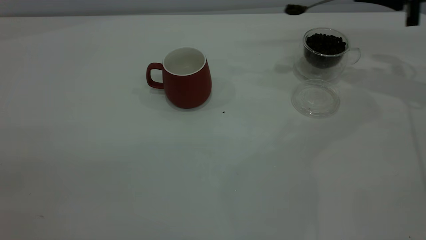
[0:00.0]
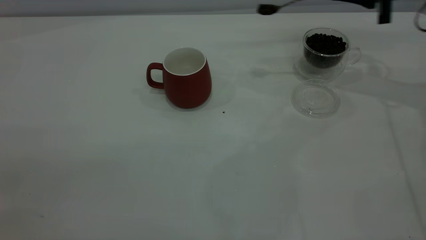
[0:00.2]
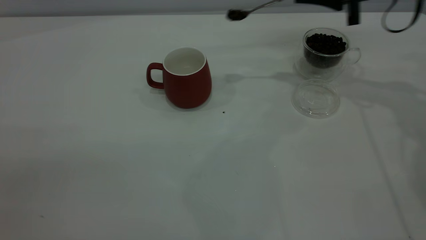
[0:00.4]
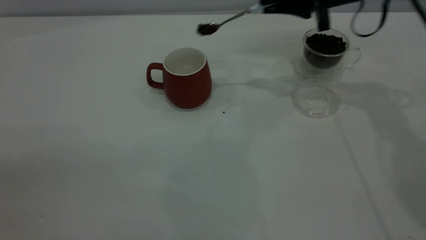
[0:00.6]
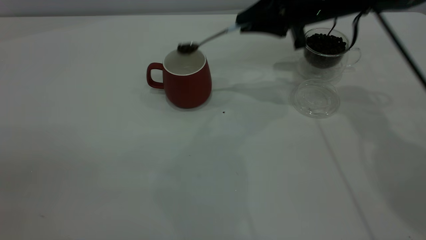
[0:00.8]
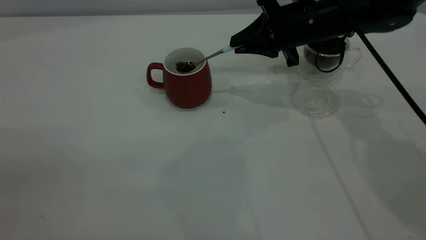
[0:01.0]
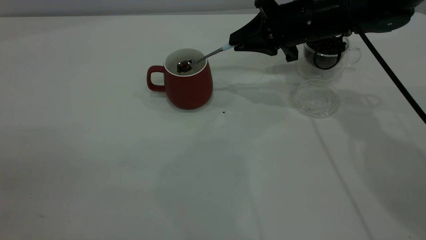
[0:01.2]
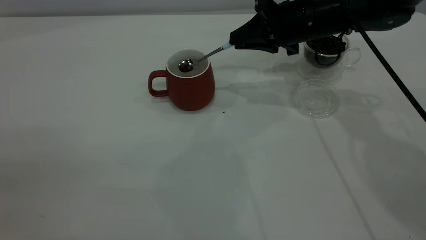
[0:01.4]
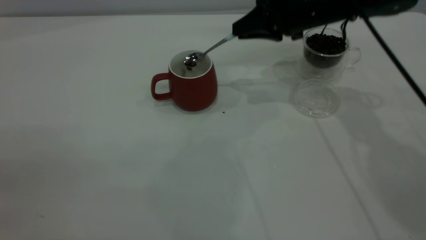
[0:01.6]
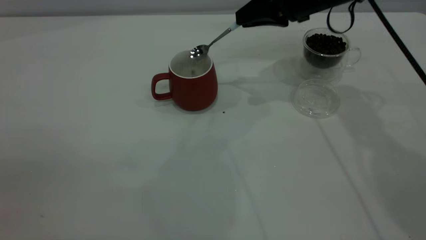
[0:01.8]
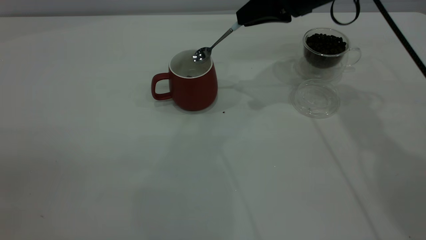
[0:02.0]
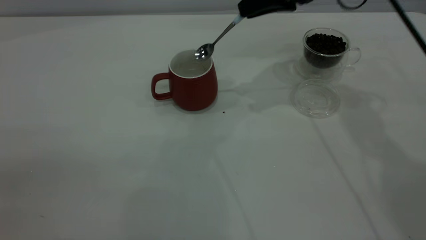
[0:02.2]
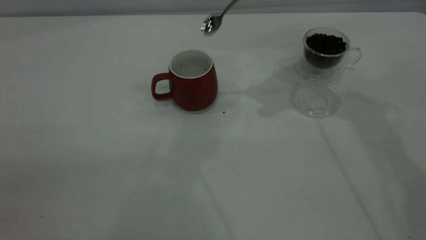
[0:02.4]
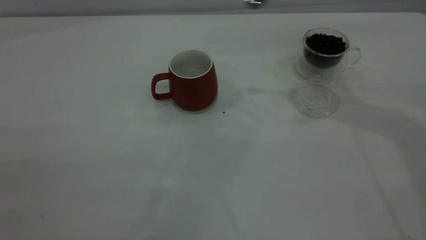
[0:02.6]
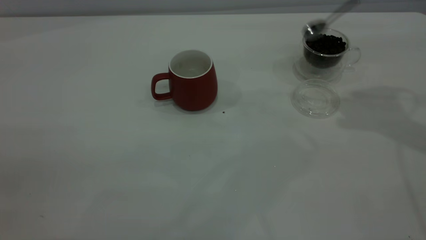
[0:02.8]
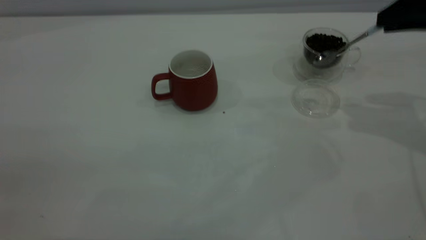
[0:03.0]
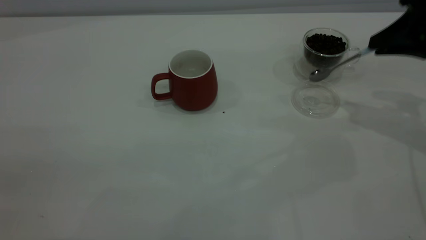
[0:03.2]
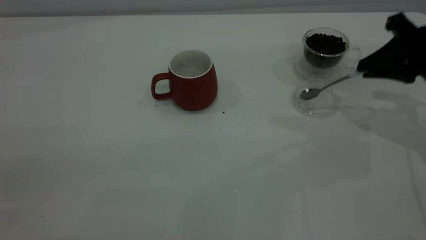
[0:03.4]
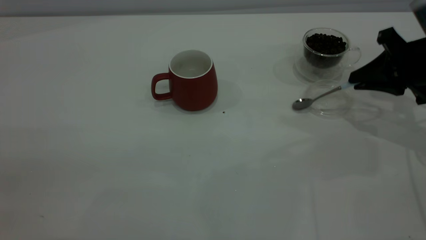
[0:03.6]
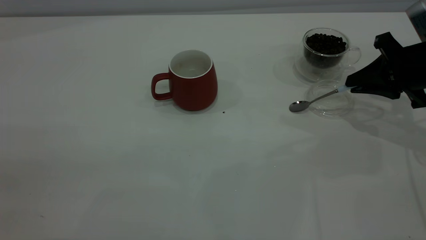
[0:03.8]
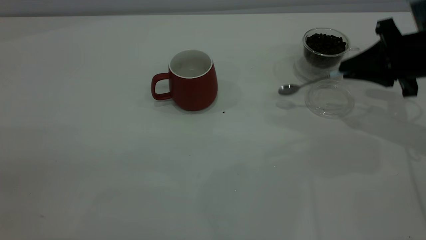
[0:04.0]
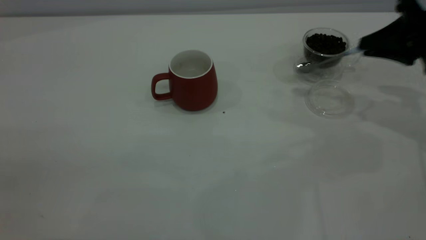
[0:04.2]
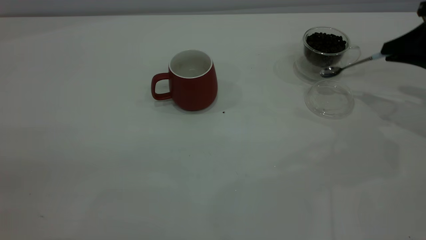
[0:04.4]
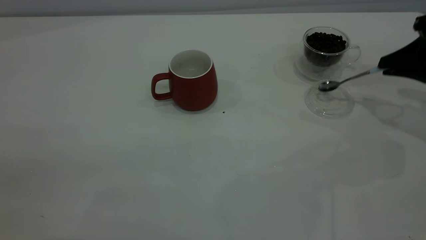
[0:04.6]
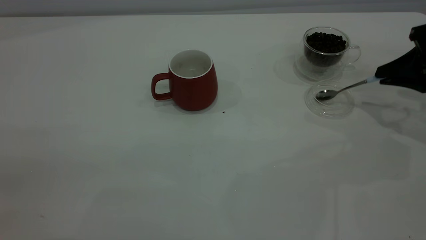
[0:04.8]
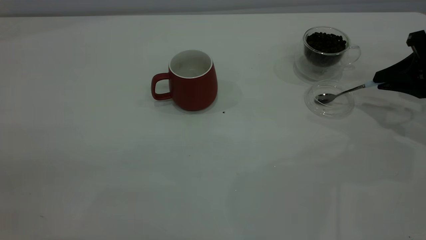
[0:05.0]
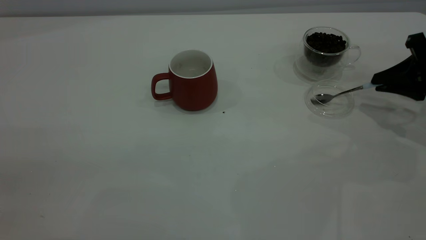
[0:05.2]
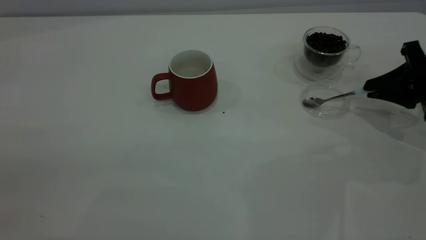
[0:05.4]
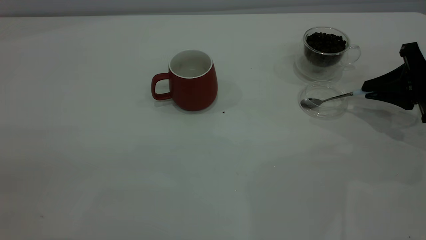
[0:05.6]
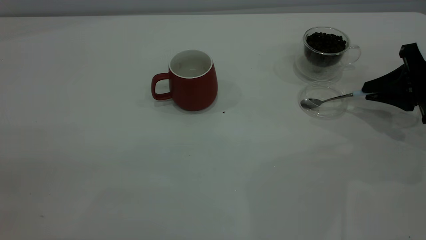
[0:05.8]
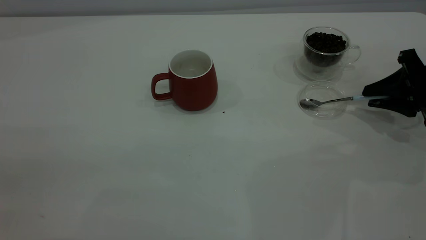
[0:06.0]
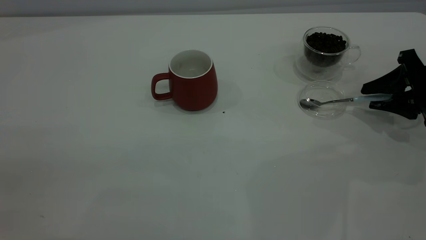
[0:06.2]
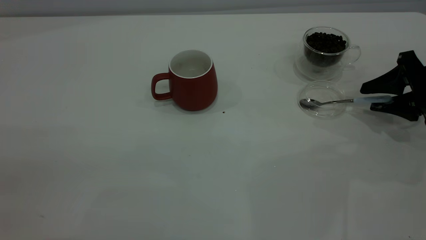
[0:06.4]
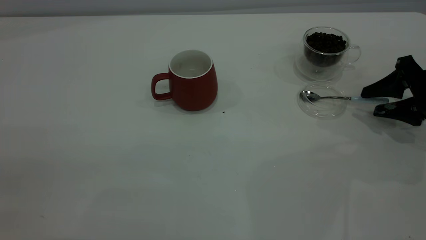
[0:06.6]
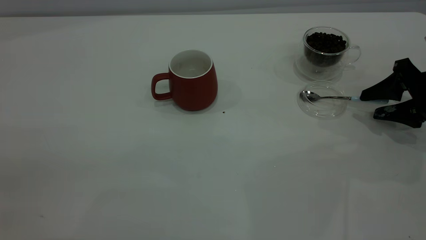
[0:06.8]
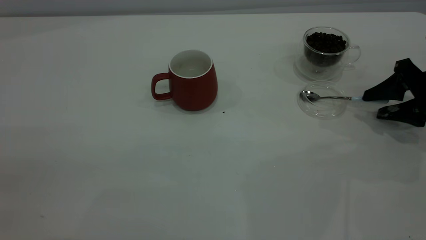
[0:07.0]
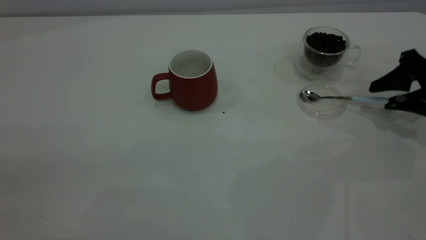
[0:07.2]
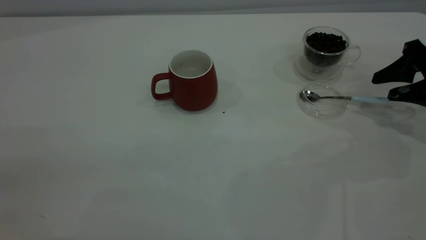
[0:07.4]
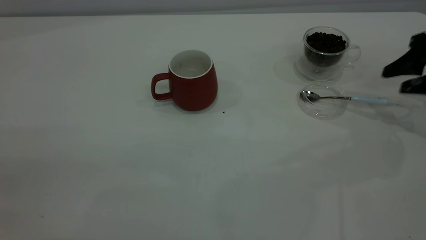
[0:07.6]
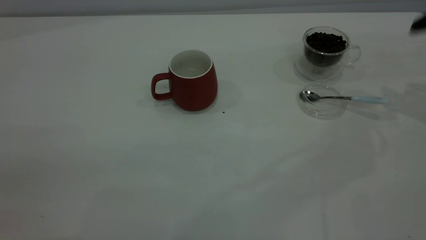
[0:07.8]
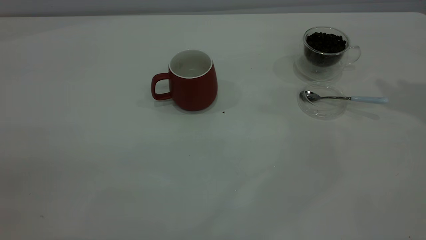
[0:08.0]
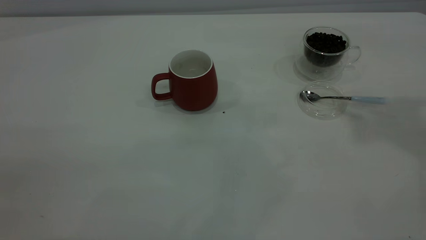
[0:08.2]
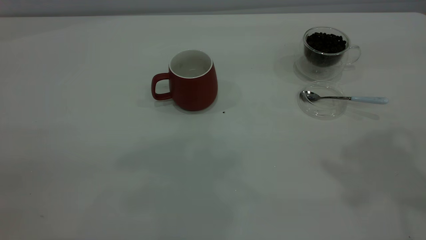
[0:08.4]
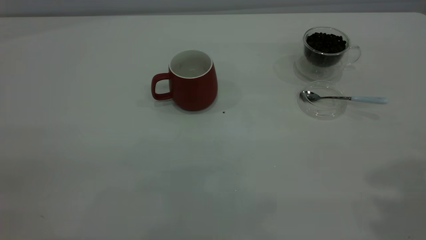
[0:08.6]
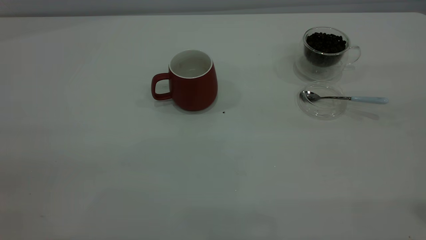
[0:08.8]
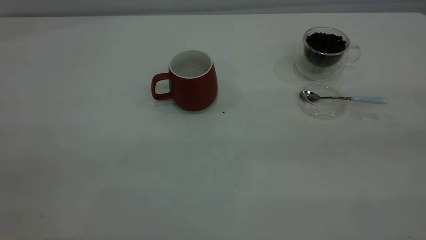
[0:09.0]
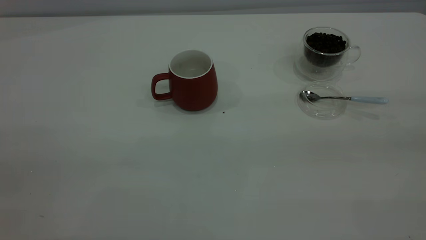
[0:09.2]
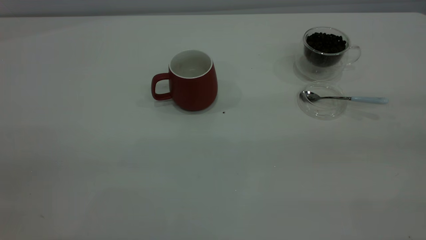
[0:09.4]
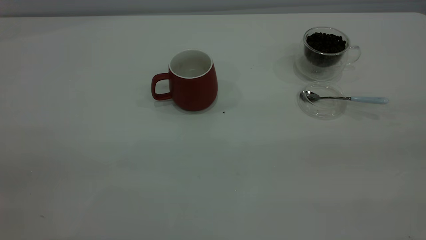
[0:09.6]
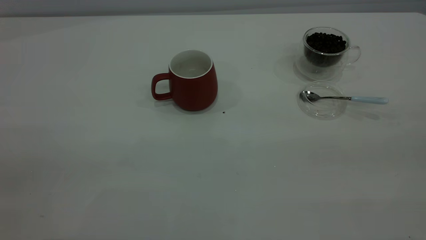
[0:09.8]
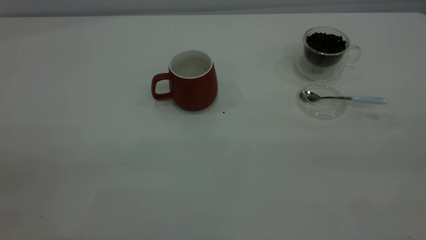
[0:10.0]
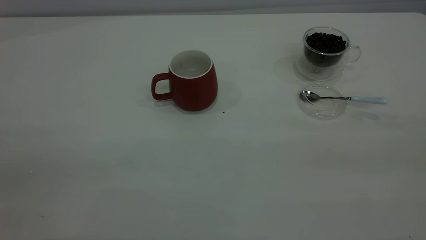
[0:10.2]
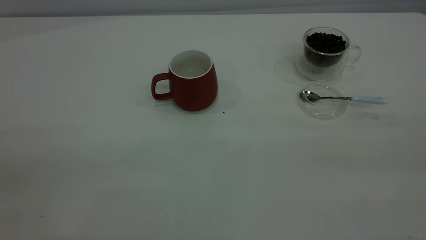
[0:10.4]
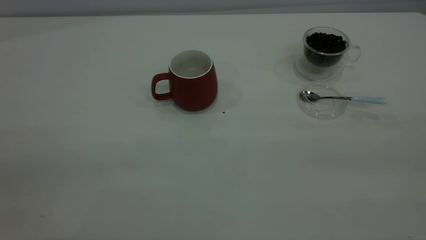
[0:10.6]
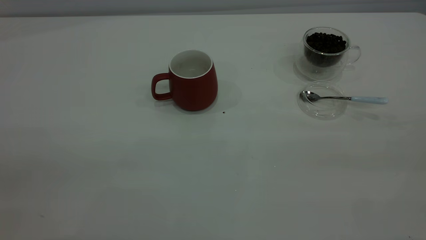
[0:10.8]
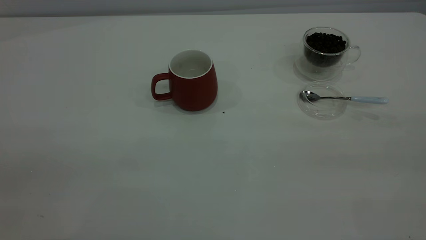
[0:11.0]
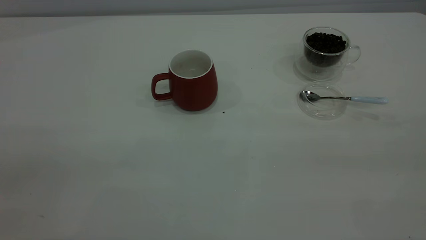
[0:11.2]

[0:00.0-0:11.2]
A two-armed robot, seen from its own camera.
Task of the whole recording: the left gripper place the red cup in the center of the table, the right gripper take the blue spoon from the cup lid and scoop out the coffee beans from the coffee cup and put them into the red cup, the right gripper put the spoon back into the cup lid.
Step, 0:00.0 to 0:02.2: Scoop a spoonful of beans into the cup.
Step, 0:02.4 to 0:07.4: Place the spoon back in its original place.
0:00.0 to 0:01.6: The right gripper heads to the left, covering about 20 cm.
0:01.6 to 0:03.2: The right gripper travels to the right and backward by roughly 20 cm.
0:03.2 to 0:04.8: The right gripper goes up and down, some 5 cm each way, reversing 2 times.
0:04.8 to 0:06.4: The right gripper opens its fingers.
0:06.4 to 0:08.0: The right gripper goes about 25 cm upward.
